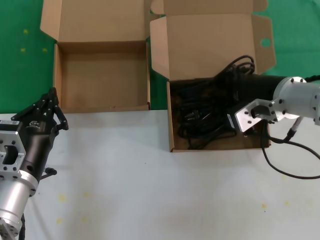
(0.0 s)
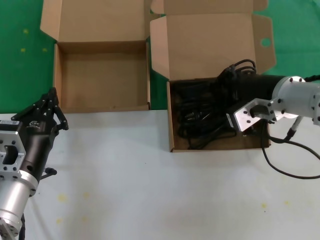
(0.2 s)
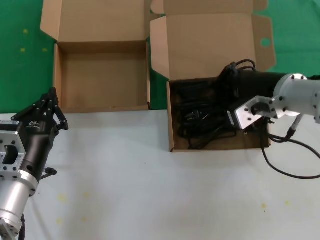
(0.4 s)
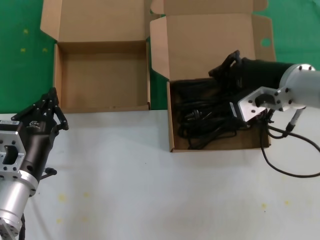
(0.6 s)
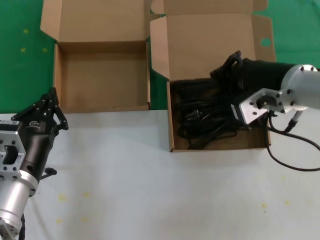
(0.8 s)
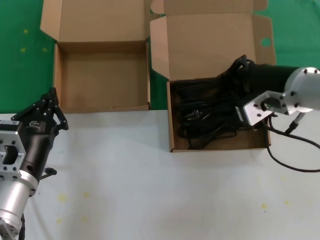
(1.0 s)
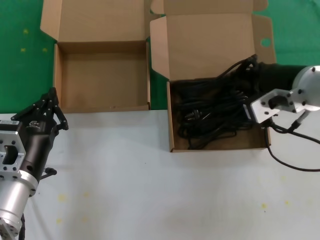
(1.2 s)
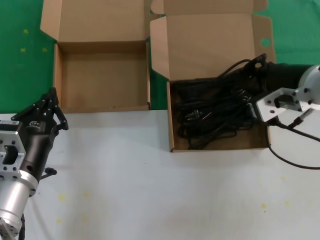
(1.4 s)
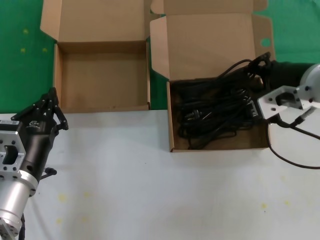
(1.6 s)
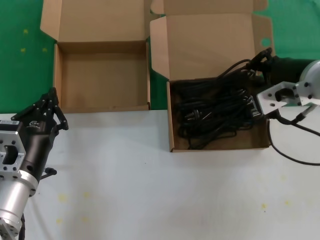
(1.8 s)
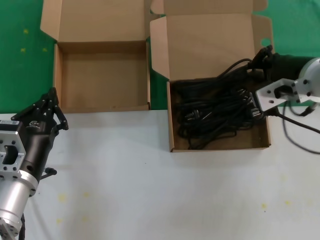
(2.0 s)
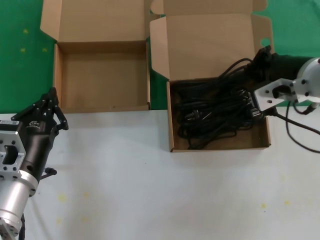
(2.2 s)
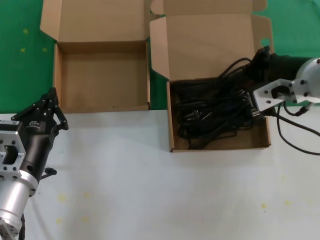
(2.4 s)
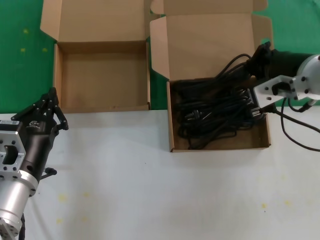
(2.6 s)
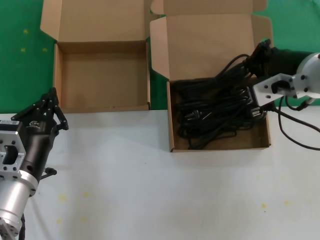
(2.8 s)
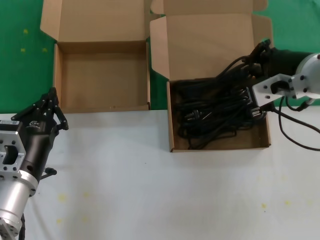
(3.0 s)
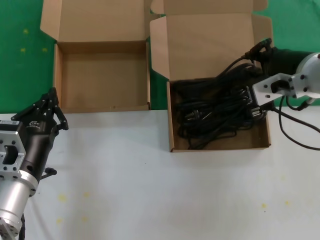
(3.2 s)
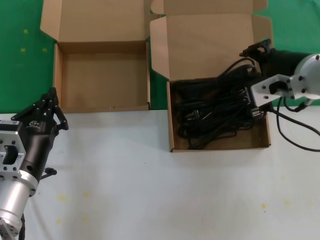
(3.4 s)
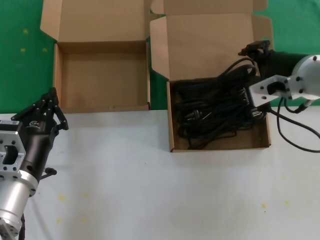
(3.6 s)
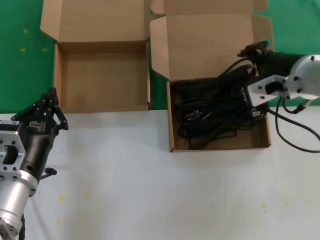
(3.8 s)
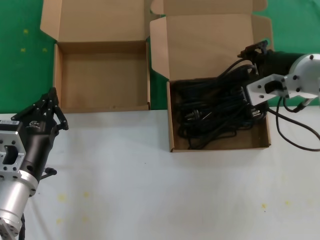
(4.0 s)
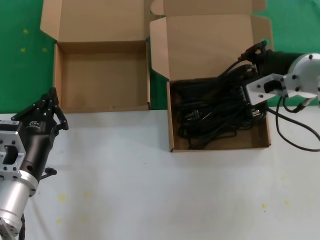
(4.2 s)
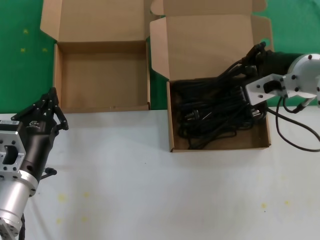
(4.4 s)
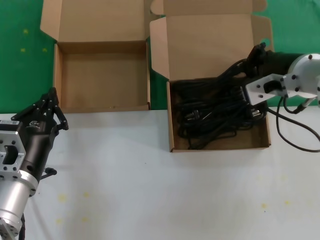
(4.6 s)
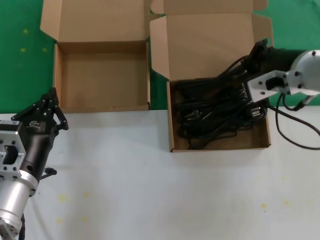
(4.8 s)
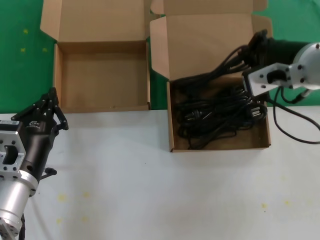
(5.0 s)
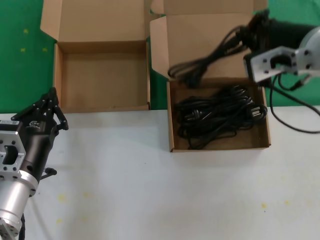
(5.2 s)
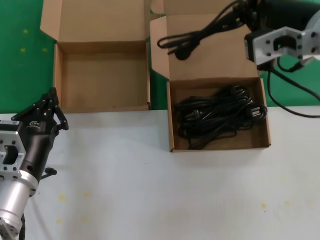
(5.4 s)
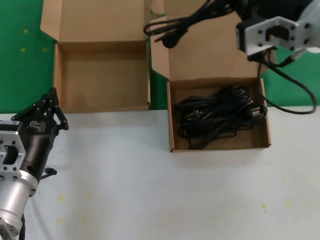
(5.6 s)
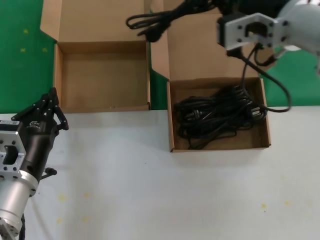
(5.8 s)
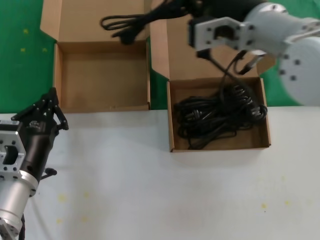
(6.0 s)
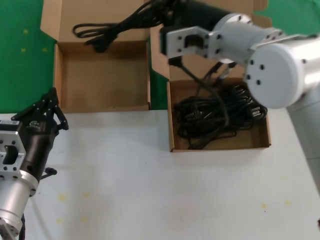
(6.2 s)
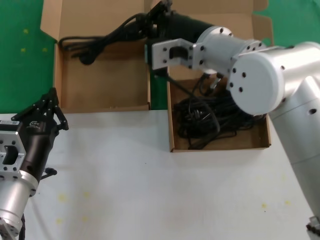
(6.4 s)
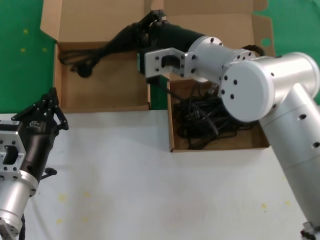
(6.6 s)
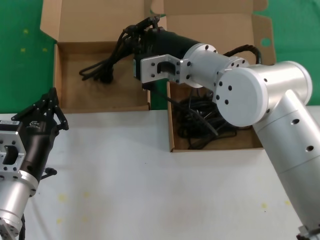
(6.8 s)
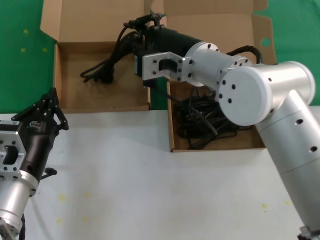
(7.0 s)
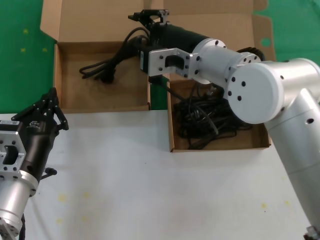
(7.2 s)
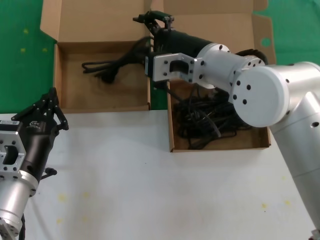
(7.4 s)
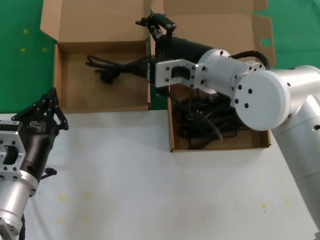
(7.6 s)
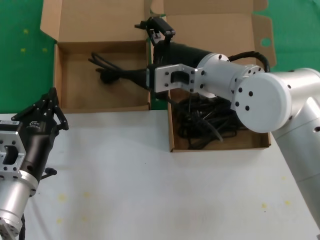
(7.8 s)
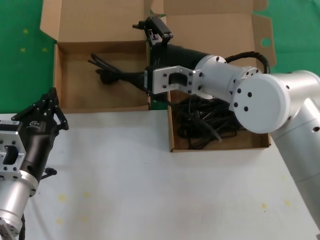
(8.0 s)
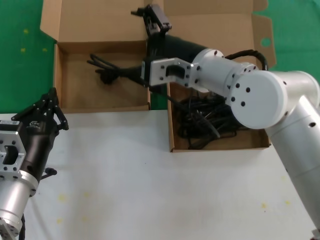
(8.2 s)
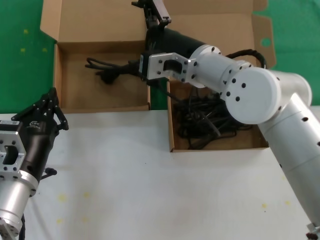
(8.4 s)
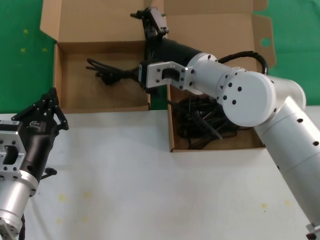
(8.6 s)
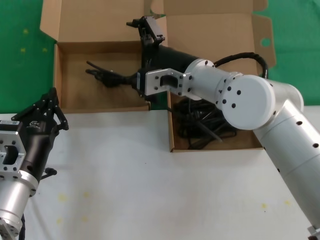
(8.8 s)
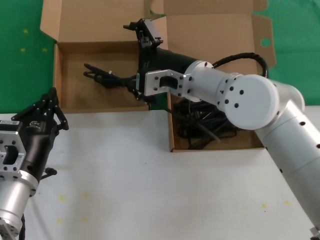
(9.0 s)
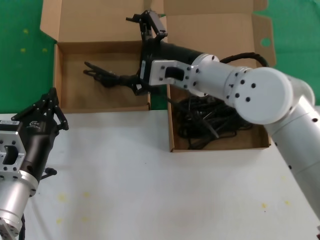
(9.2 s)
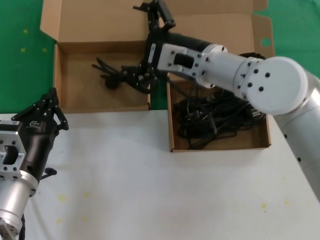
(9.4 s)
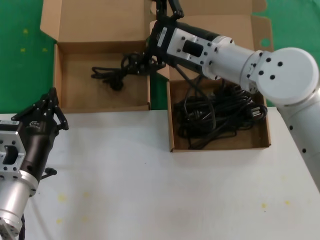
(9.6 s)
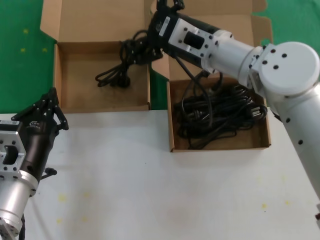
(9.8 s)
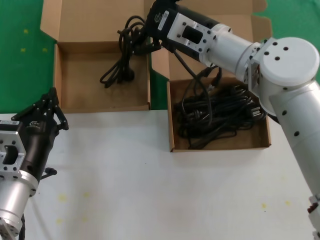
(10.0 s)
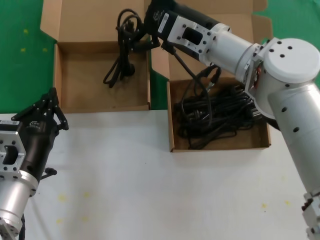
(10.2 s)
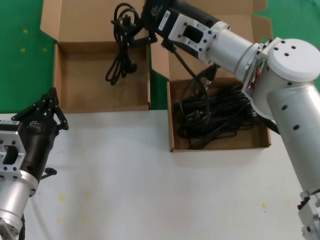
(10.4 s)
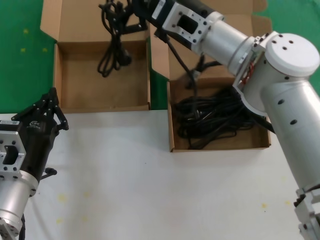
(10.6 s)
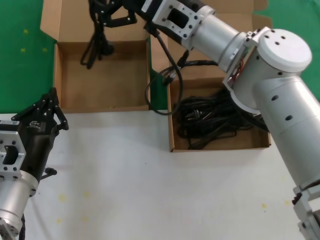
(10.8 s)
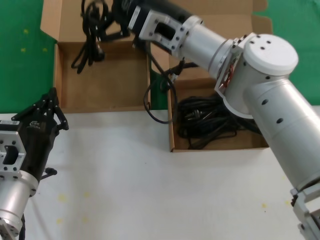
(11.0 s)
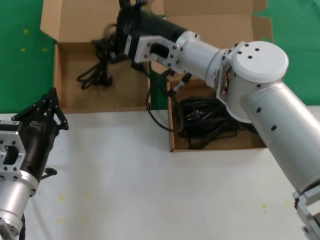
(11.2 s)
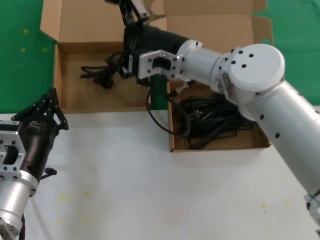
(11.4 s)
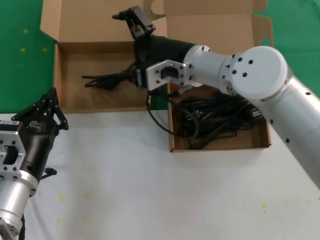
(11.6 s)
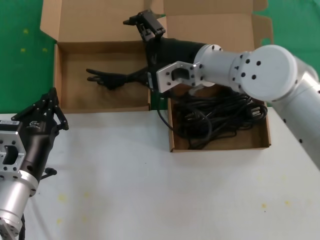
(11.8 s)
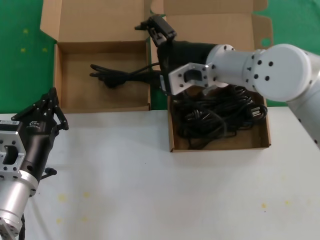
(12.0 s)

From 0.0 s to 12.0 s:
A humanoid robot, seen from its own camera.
Task of the whole recording: take the parts from the box containing them and put them into an empty box.
Step, from 0.0 s to 4.6 s: Grasp the data cable.
From 0.0 s to 1.6 s: The hands move only a little.
From 1.6 s to 3.0 s: The two hands keep their place.
From 3.0 s to 4.4 s: The hands move only a little.
From 4.4 s to 6.0 s: The right hand travels to the left and upward by roughly 10 cm.
From 6.0 s to 7.6 s: The right hand is displaced downward and to the left by about 10 cm.
From 7.6 s to 9.0 s: The hands make only small movements.
From 9.0 s to 10.4 s: The right hand moves about 5 cm.

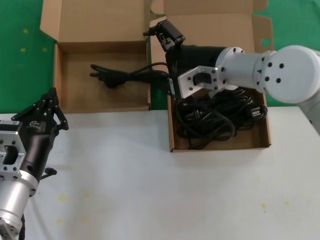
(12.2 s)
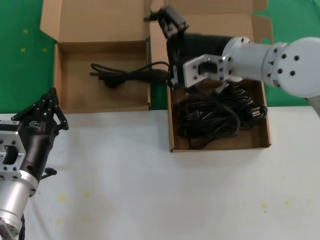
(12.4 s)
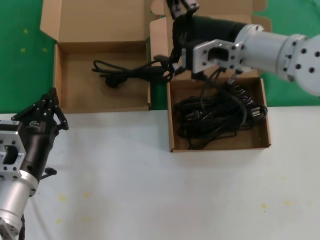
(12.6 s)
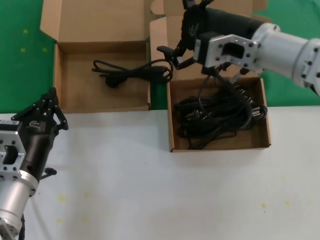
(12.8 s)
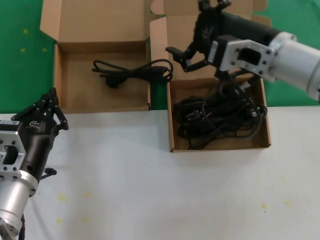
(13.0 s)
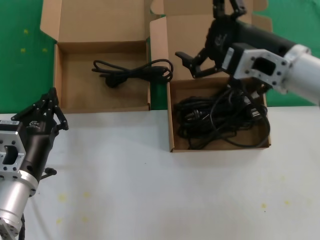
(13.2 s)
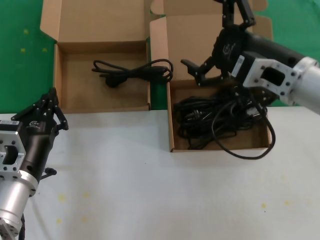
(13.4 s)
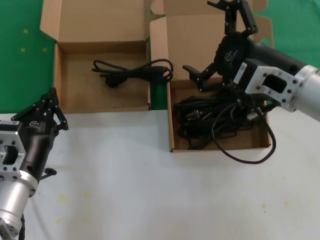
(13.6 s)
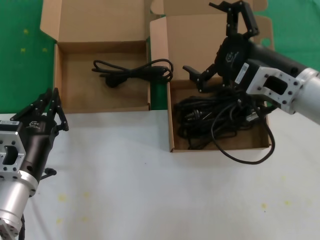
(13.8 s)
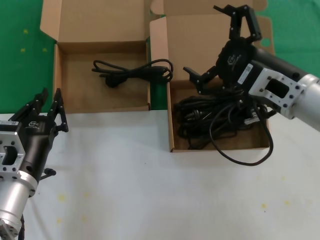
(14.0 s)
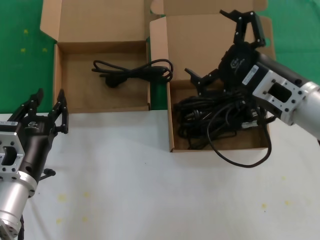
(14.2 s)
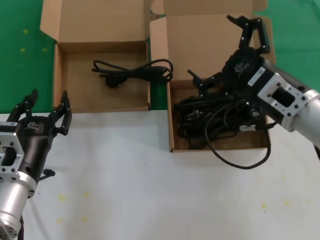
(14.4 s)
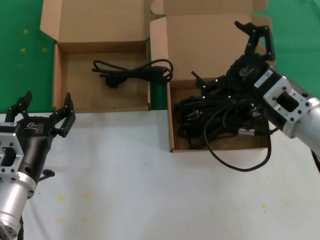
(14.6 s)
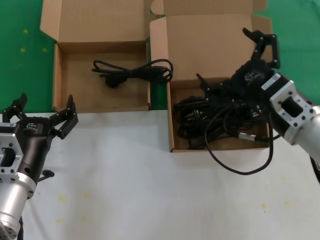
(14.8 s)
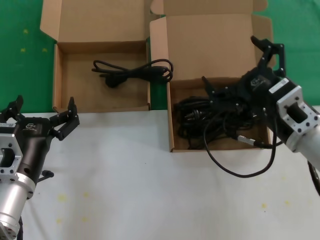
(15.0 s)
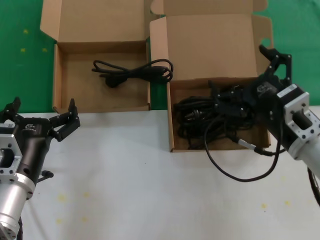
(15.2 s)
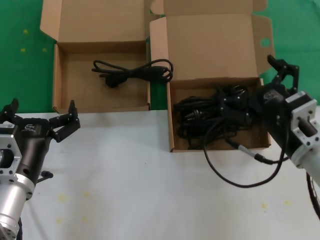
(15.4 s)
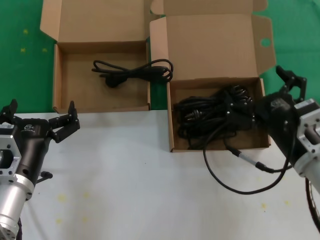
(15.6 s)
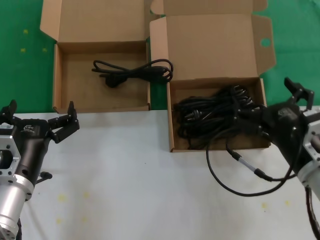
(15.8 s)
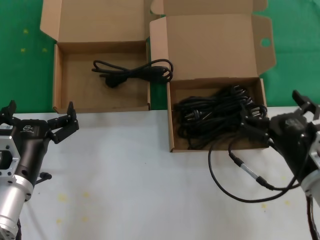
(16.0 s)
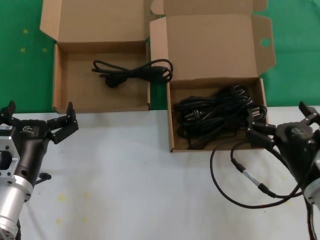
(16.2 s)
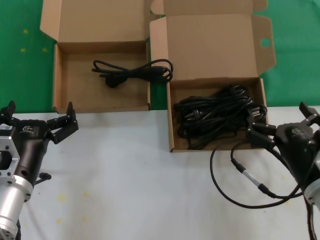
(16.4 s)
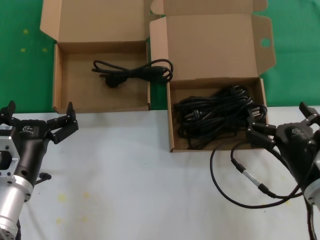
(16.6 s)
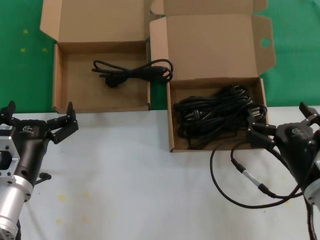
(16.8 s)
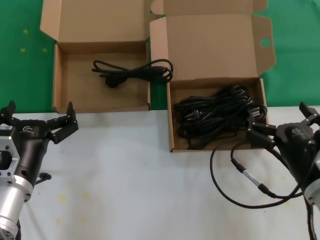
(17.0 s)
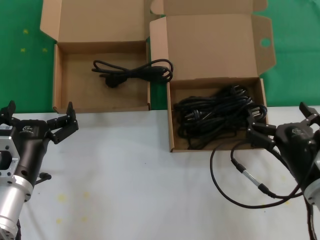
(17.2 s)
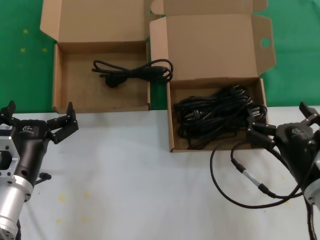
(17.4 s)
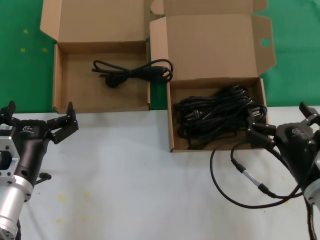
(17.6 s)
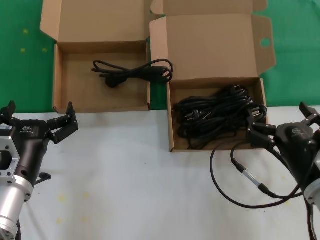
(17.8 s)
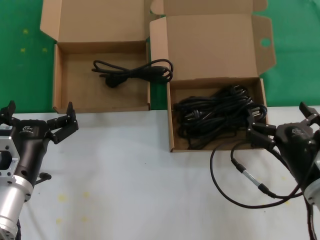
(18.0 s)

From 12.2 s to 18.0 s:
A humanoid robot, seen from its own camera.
Task of the whole recording: take the parts from the box containing them and put them into an empty box.
From 12.2 s to 13.6 s: The right hand heads backward and to the right, covering about 15 cm.
From 13.6 s to 15.0 s: The right hand is displaced downward by approximately 10 cm.
From 15.0 s to 16.6 s: The right hand heads downward and backward, covering roughly 10 cm.
From 16.6 s to 18.0 s: Both hands stay put.

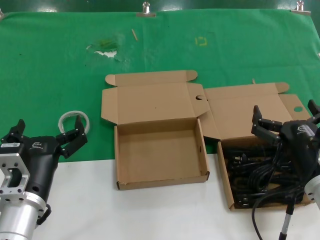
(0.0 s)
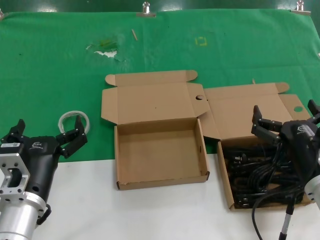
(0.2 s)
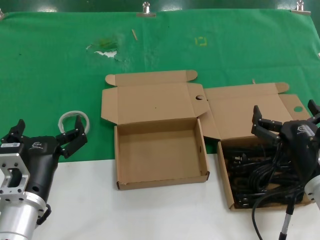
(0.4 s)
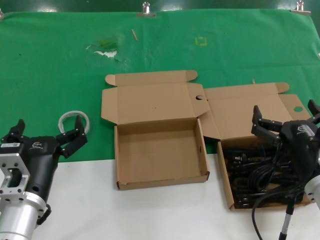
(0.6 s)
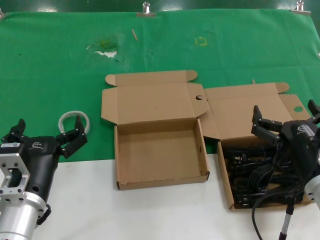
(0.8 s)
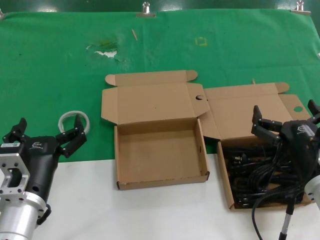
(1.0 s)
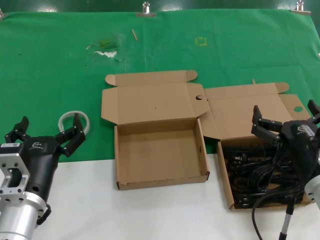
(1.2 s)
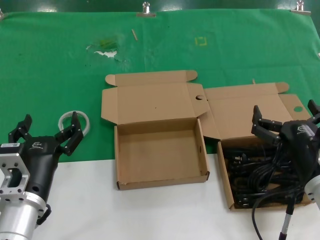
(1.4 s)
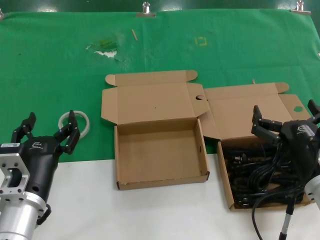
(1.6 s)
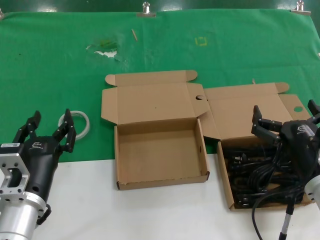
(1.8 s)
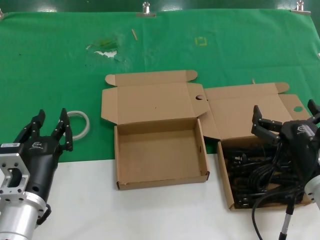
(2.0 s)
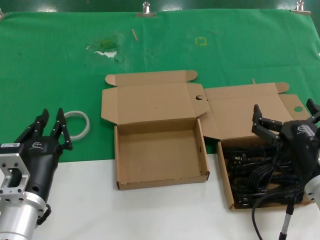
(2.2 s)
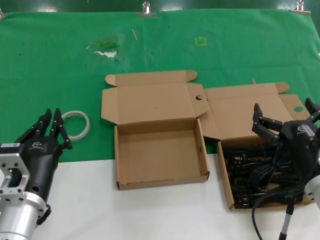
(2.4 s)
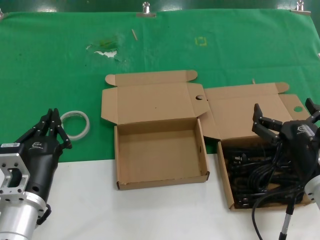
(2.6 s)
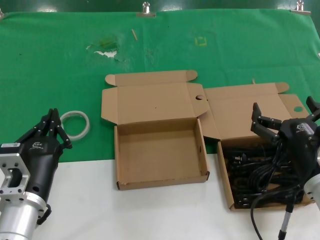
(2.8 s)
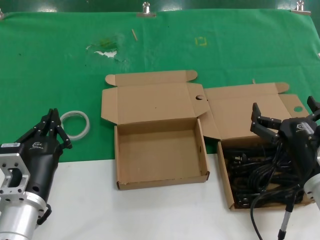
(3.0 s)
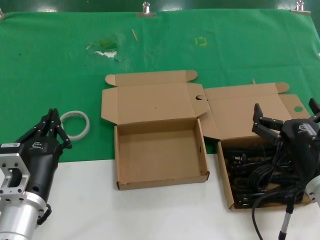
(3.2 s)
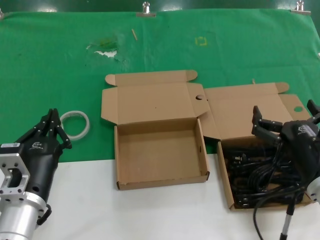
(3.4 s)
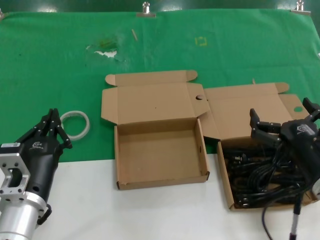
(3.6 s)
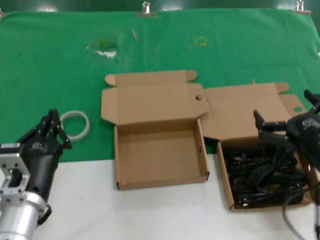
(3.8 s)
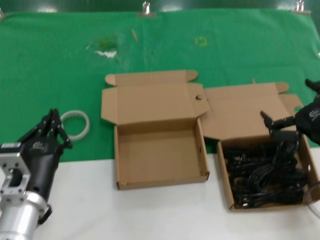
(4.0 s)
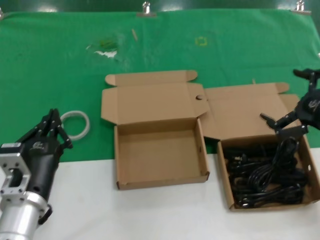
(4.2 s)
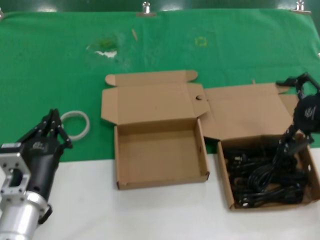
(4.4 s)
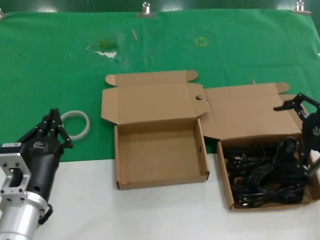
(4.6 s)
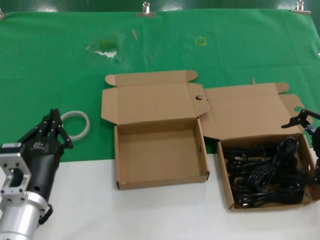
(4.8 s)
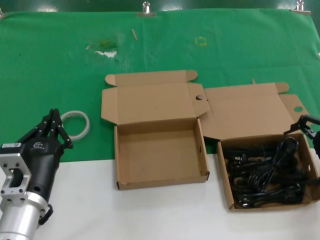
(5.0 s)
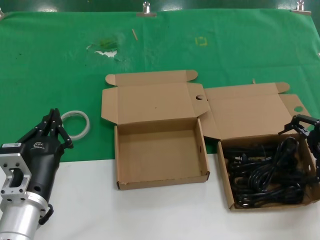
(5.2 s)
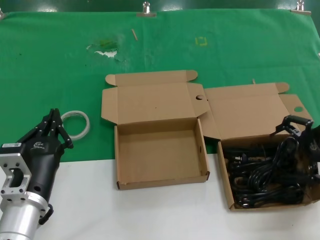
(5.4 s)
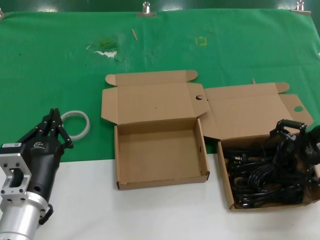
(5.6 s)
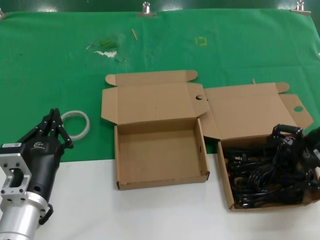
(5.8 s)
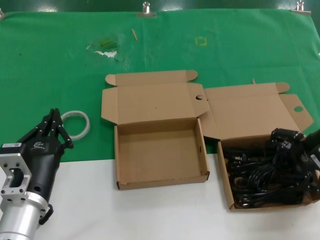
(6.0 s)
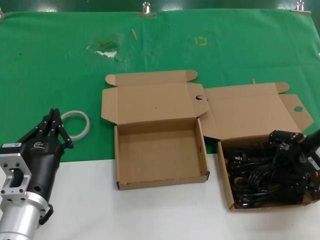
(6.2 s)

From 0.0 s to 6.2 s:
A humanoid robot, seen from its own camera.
Task of the whole recording: take the parts from the box containing them and put them into an empty box.
From 0.0 s to 3.2 s: The two hands keep their place.
From 3.2 s to 4.6 s: The right hand is displaced to the right, upward and forward by about 25 cm.
From 4.6 s to 6.2 s: The right hand heads forward, covering about 5 cm.
